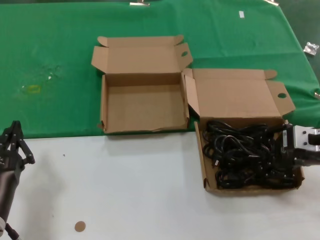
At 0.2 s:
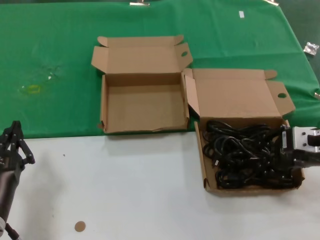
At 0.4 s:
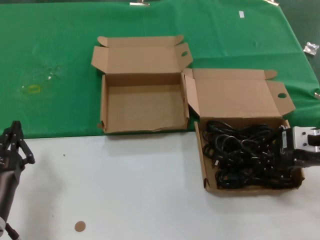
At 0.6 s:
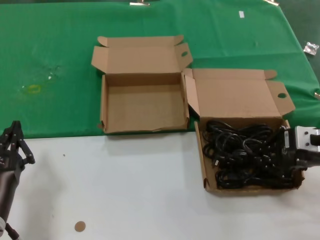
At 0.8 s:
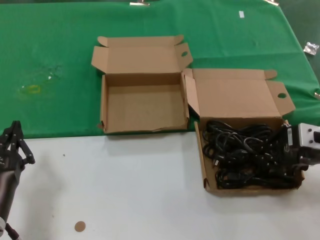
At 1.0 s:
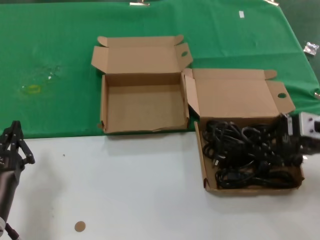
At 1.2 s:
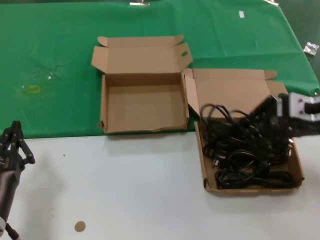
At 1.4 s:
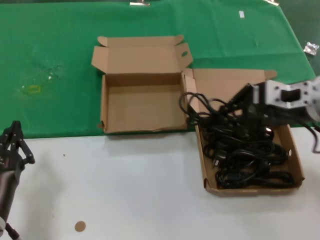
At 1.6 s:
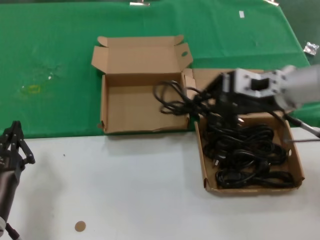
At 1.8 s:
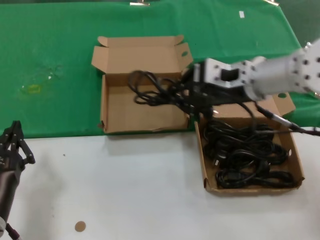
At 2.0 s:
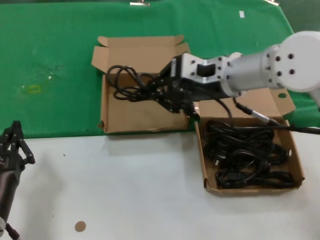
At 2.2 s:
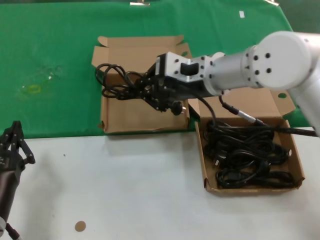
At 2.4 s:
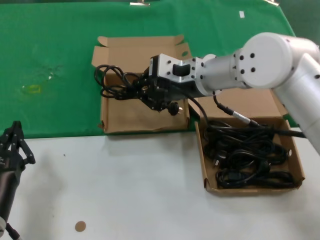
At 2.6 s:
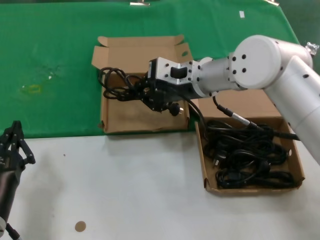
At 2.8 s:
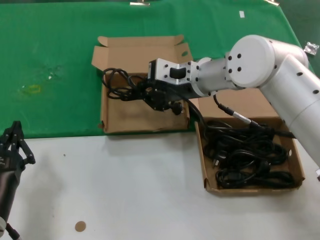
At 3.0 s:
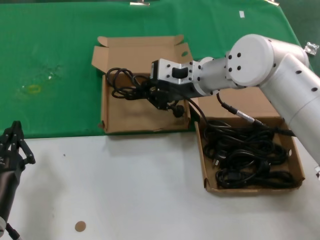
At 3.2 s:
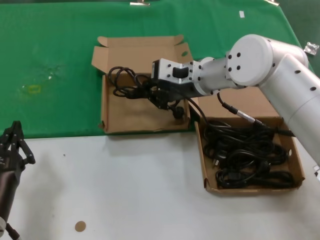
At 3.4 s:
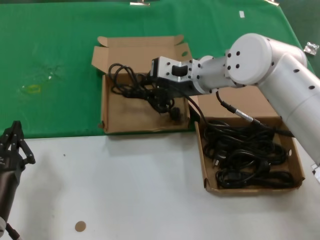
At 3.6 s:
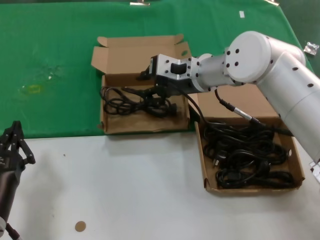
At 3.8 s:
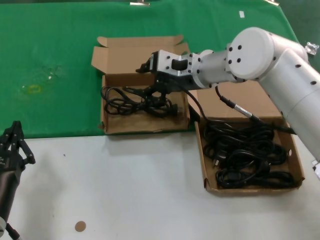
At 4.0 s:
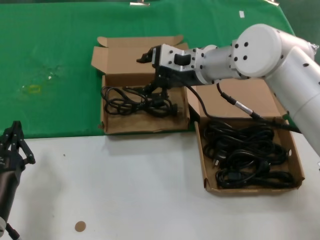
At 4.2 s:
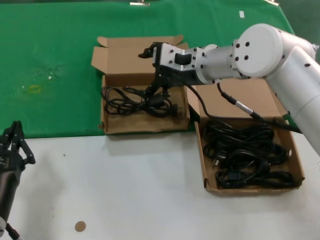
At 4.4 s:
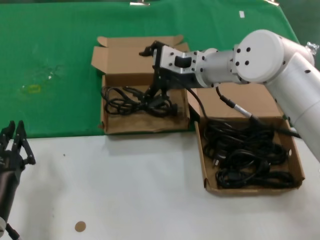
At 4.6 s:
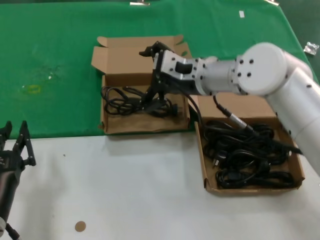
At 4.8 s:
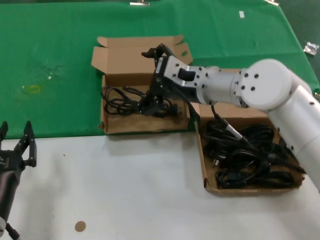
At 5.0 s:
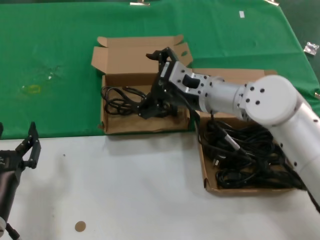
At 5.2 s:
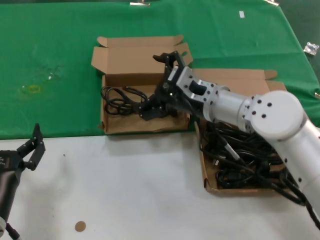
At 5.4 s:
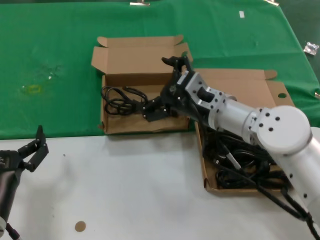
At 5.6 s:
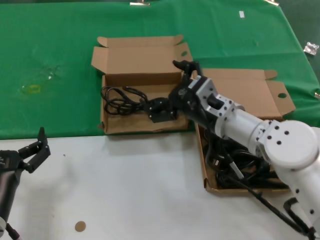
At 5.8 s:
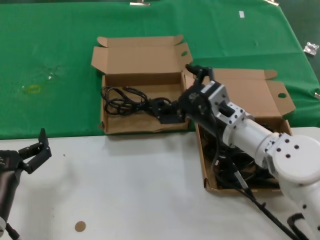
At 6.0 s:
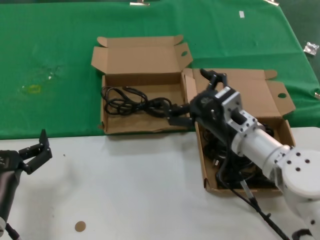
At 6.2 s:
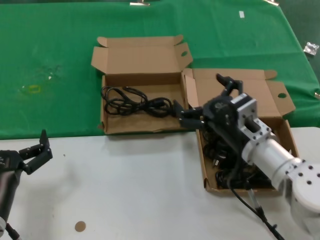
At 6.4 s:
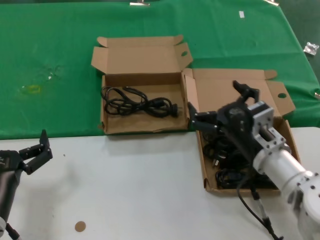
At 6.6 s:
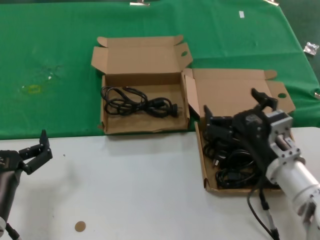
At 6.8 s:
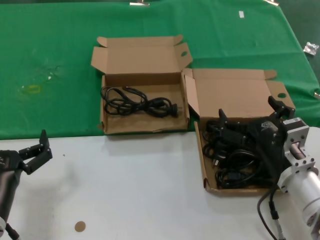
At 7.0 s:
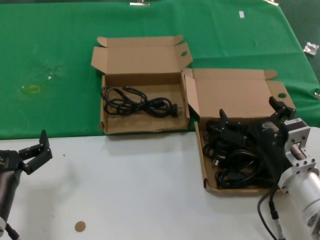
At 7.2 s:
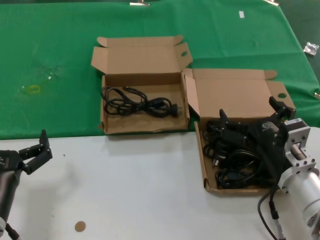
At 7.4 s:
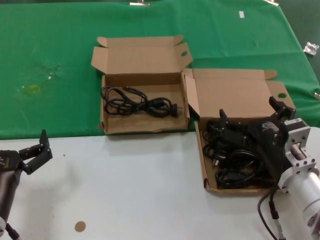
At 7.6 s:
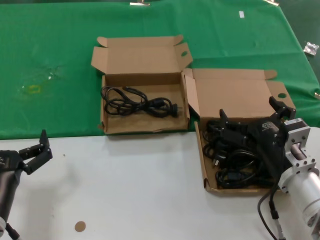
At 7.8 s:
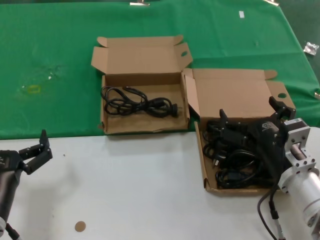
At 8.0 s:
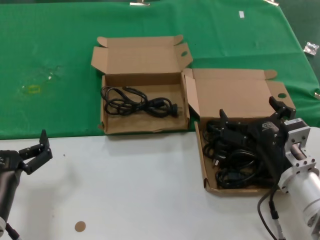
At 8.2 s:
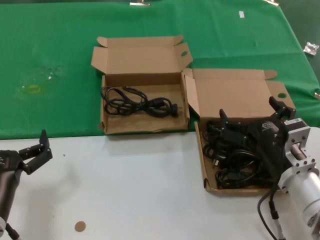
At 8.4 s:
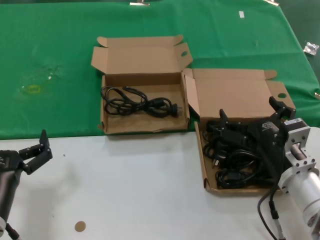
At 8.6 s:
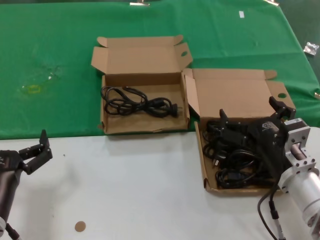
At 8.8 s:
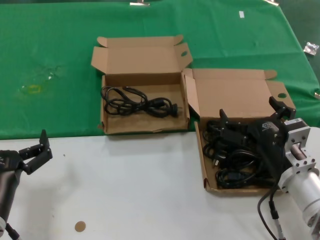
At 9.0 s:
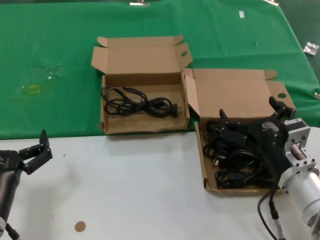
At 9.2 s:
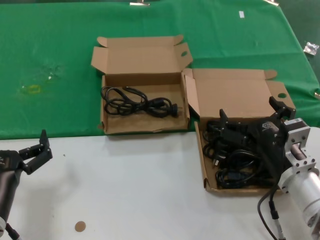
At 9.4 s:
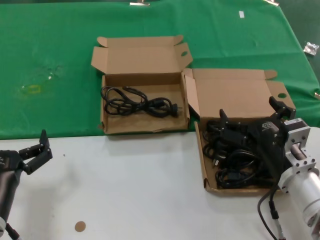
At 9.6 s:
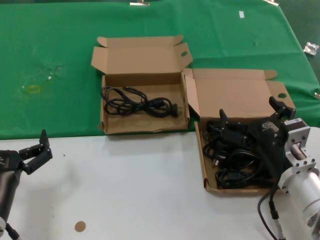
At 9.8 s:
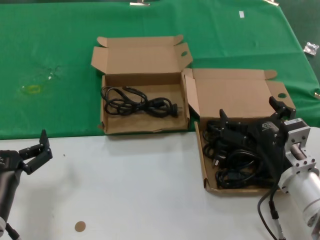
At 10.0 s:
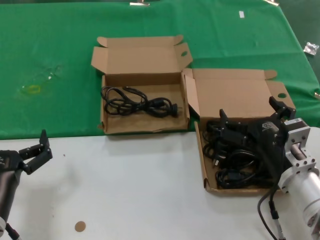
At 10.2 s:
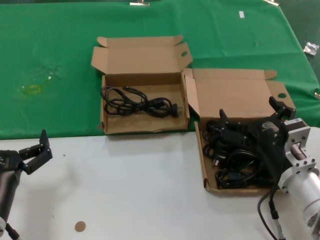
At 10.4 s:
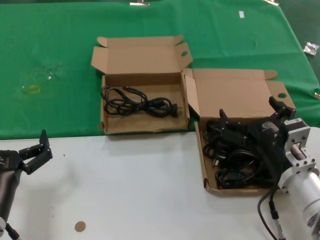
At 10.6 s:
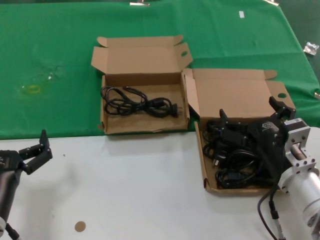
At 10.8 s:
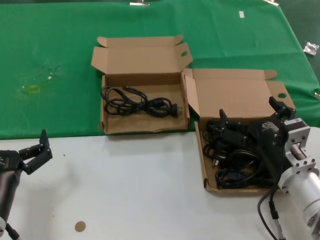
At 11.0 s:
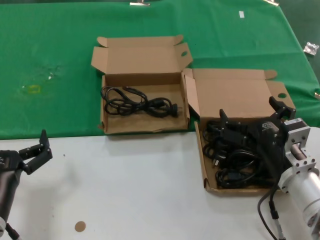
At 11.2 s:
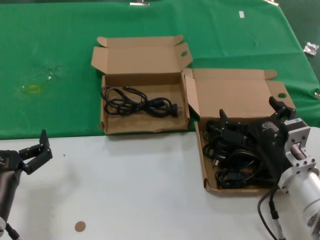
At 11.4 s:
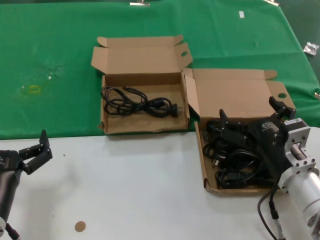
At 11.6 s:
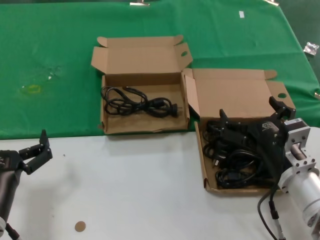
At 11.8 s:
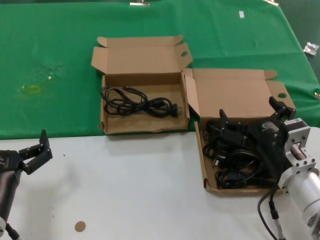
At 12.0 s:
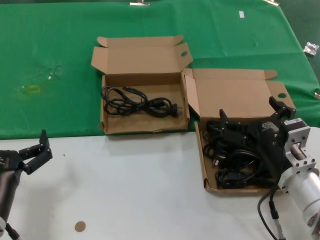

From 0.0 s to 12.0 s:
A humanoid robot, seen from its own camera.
Task of the whole recording: take the parts from the box containing them and put them into an empty box.
Step, from 0.6 s to 4.2 s: Place the data cable in the another box.
From 0.0 s to 1.6 s: The right hand shifts roughly 15 cm to the left, upward and forward.
From 1.6 s to 3.0 s: The right hand shifts approximately 15 cm to the left and forward.
From 3.0 s to 4.4 s: There are only small adjustments of the hands.
From 4.4 s to 6.0 s: The right hand shifts approximately 20 cm downward and backward.
From 6.0 s to 7.6 s: The right hand is displaced backward and to the right by approximately 10 cm.
From 7.6 s to 12.0 s: The two hands keep their place.

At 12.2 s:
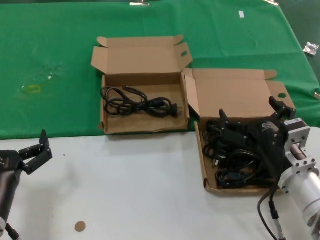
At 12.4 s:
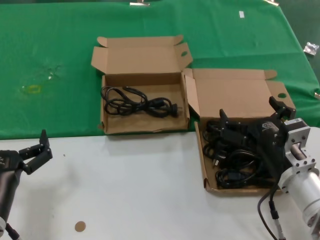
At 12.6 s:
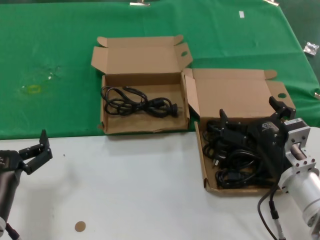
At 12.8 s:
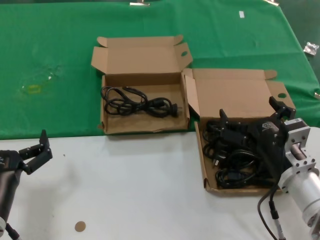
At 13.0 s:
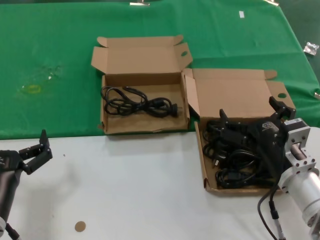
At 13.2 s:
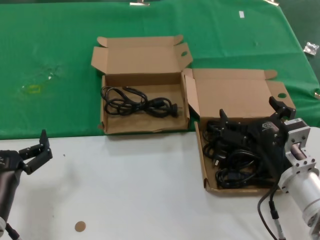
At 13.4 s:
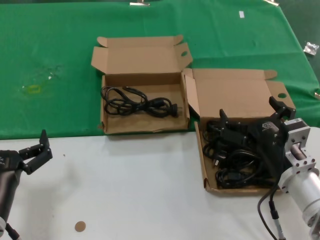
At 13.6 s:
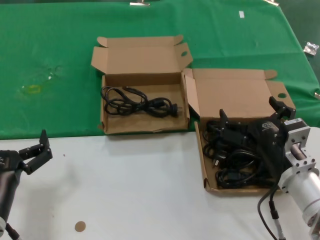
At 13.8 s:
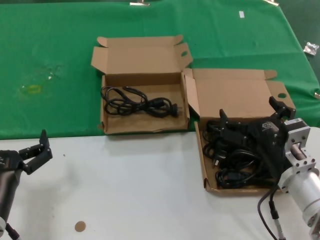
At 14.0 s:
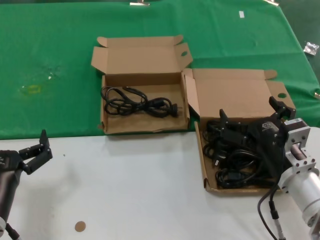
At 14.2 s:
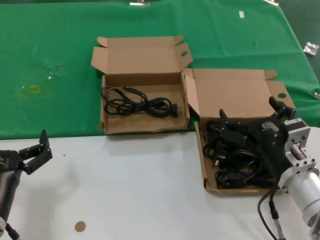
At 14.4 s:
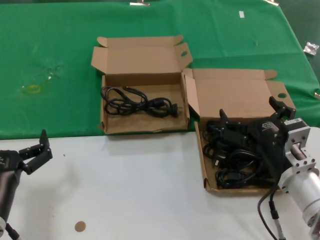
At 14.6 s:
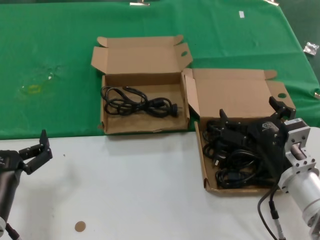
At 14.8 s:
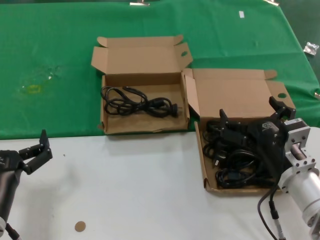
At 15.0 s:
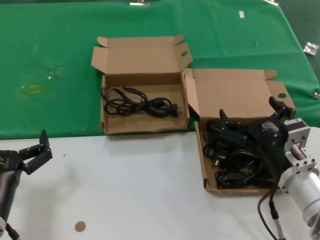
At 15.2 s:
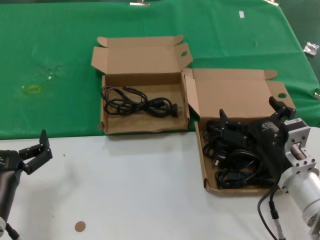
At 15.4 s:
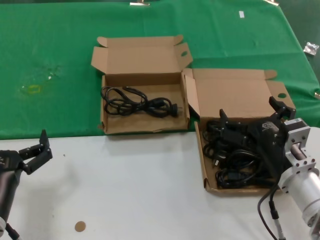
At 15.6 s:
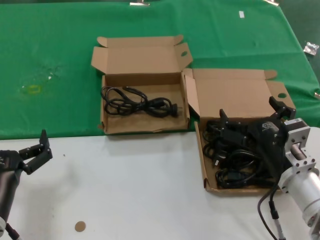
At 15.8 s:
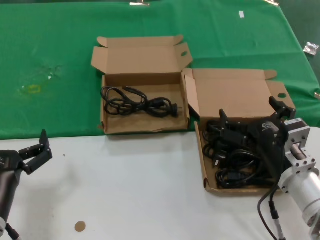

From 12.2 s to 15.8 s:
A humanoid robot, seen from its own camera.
Task of the whole recording: take the parts from the box containing them and put them into an empty box.
From 12.2 s to 15.8 s: Neither hand changes place.
